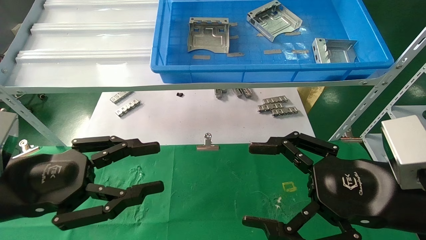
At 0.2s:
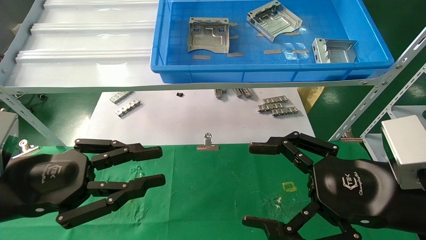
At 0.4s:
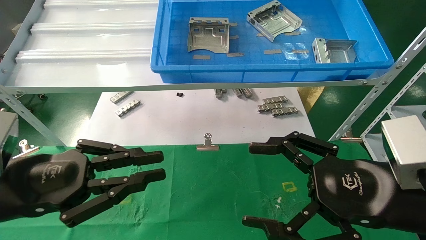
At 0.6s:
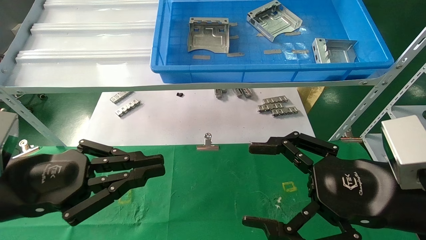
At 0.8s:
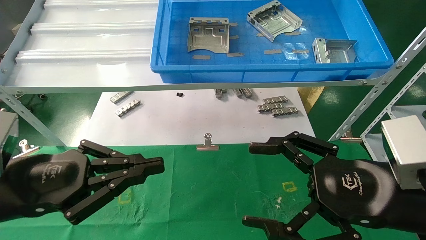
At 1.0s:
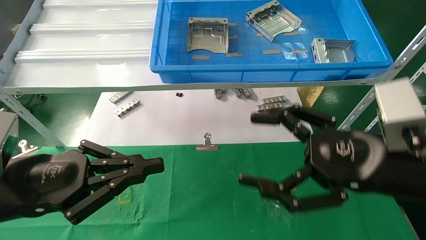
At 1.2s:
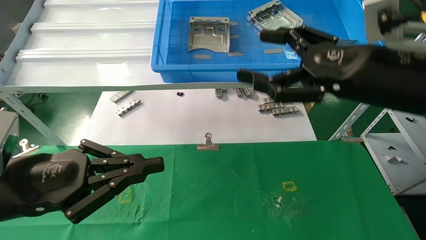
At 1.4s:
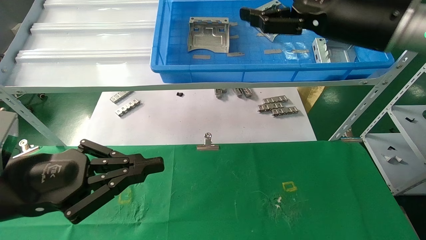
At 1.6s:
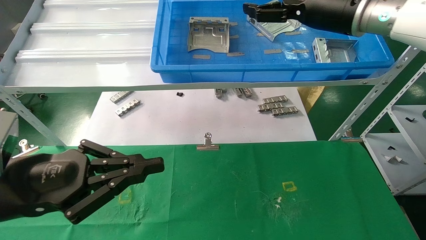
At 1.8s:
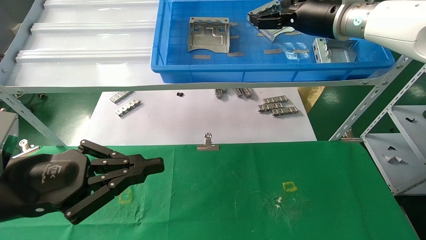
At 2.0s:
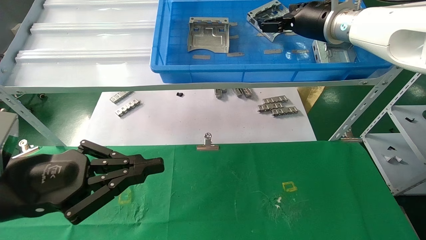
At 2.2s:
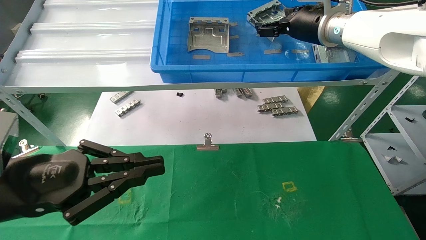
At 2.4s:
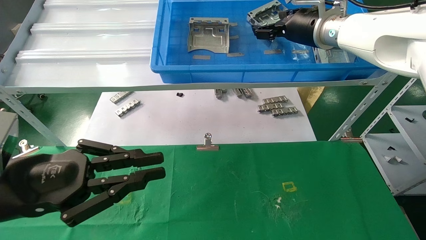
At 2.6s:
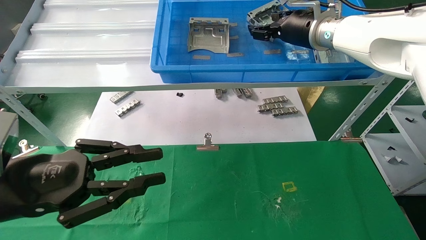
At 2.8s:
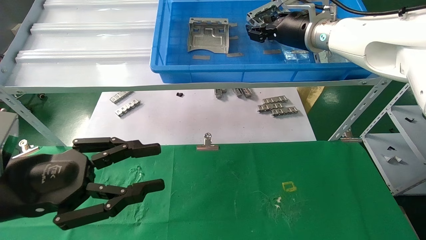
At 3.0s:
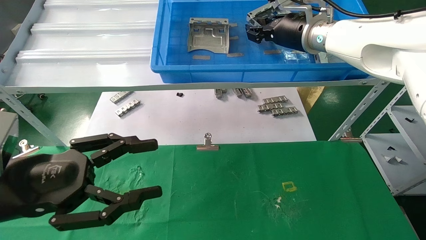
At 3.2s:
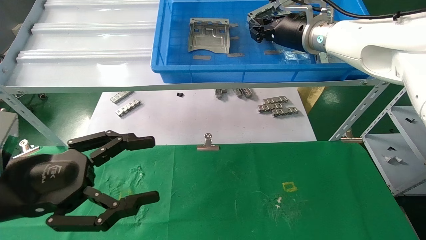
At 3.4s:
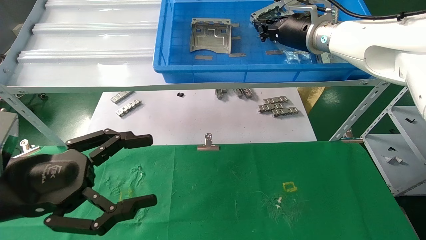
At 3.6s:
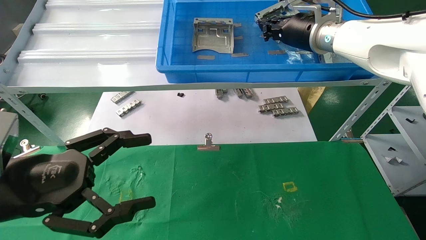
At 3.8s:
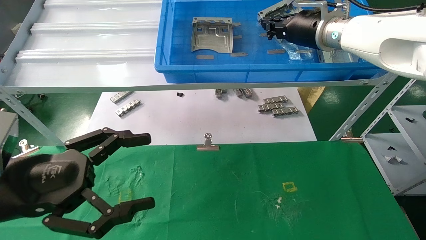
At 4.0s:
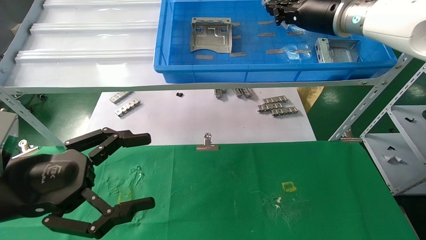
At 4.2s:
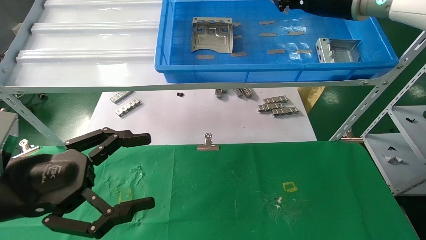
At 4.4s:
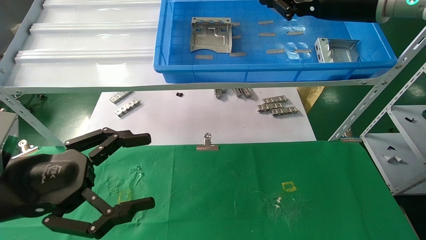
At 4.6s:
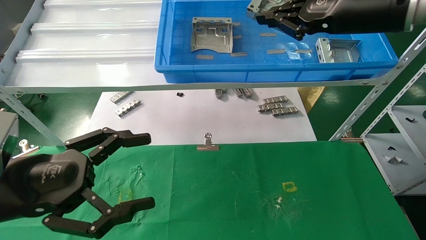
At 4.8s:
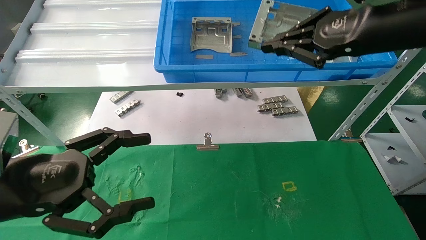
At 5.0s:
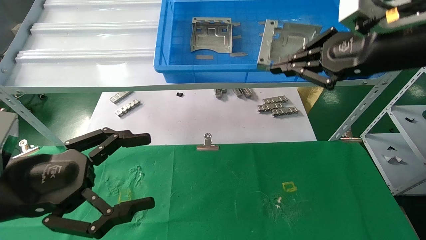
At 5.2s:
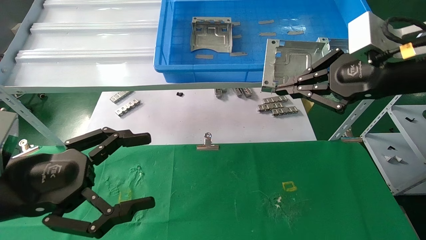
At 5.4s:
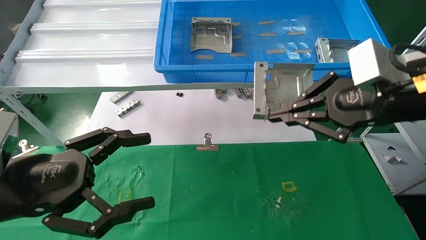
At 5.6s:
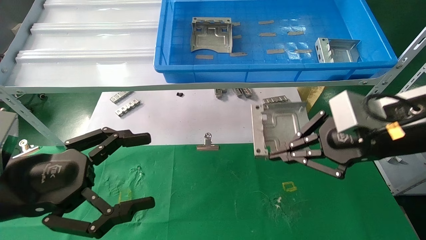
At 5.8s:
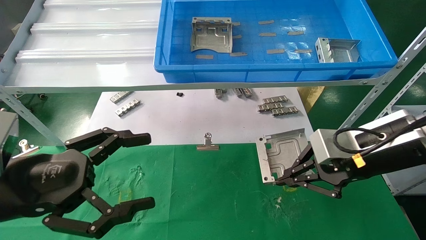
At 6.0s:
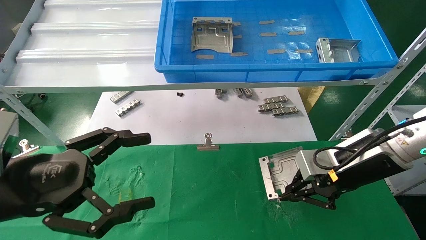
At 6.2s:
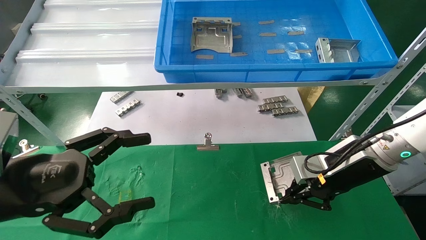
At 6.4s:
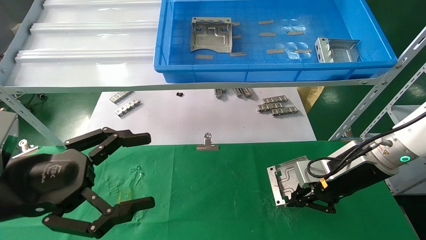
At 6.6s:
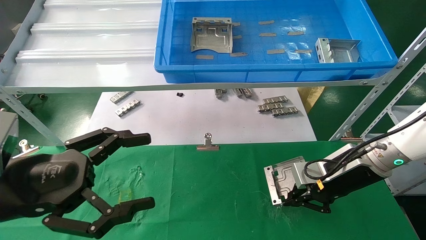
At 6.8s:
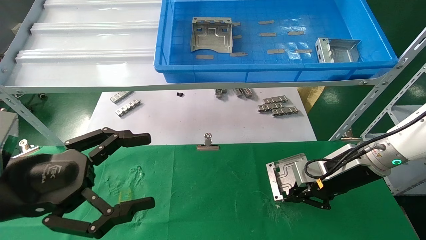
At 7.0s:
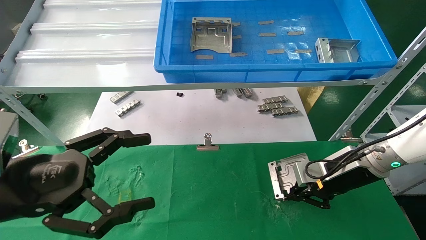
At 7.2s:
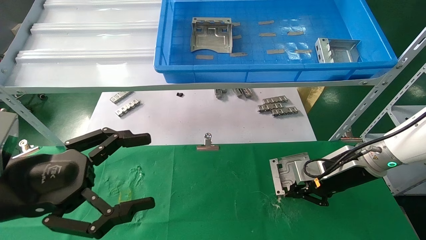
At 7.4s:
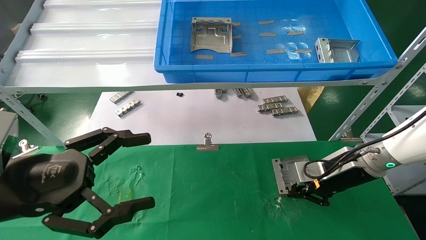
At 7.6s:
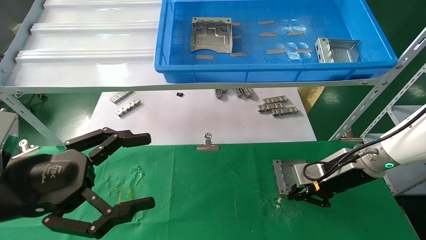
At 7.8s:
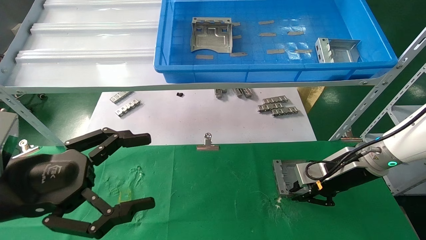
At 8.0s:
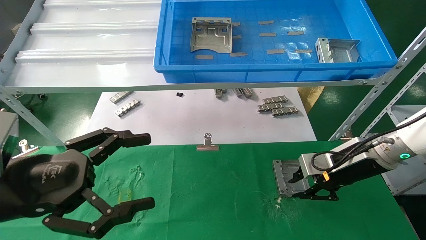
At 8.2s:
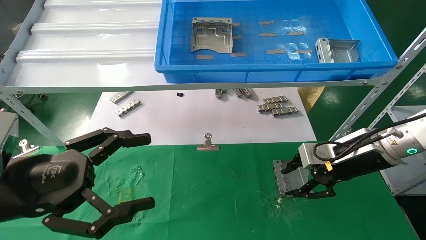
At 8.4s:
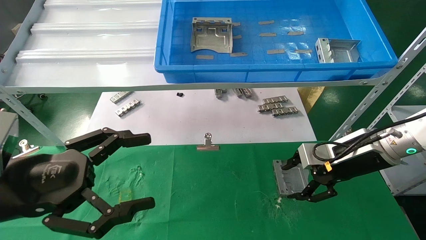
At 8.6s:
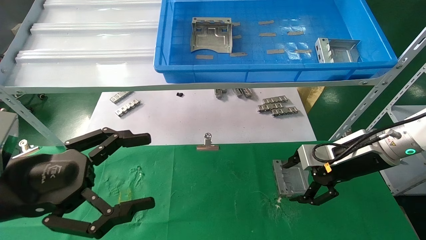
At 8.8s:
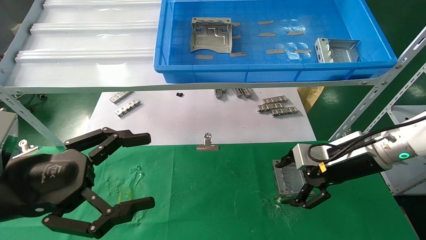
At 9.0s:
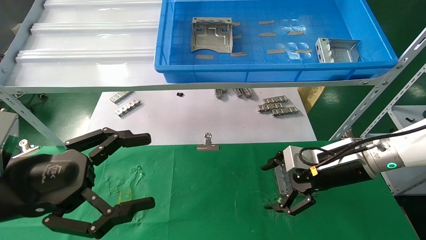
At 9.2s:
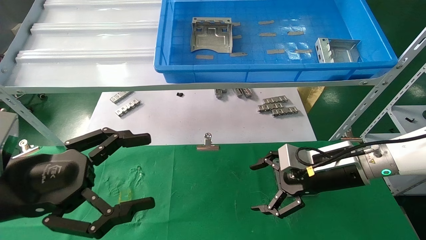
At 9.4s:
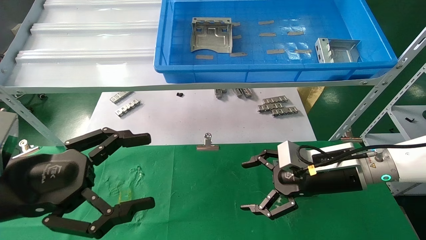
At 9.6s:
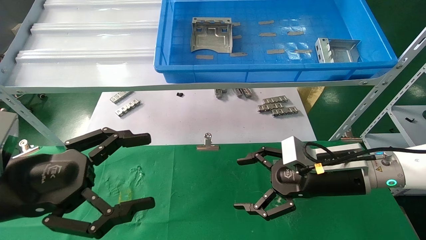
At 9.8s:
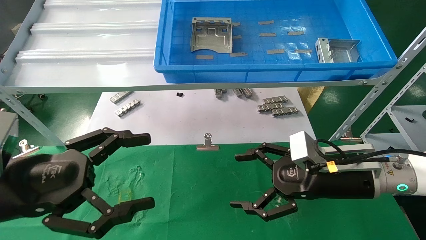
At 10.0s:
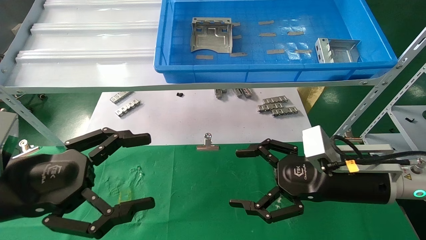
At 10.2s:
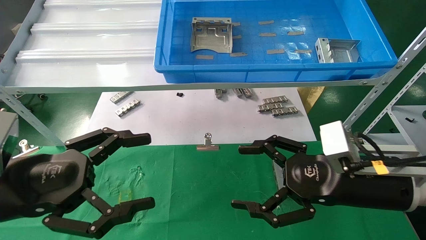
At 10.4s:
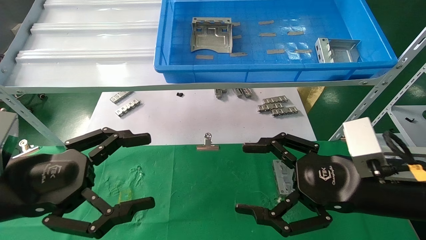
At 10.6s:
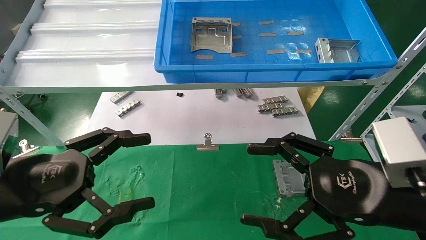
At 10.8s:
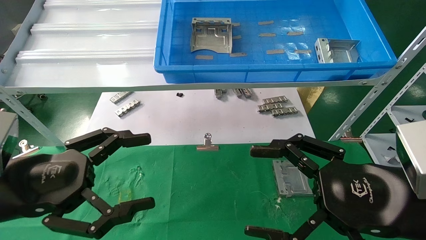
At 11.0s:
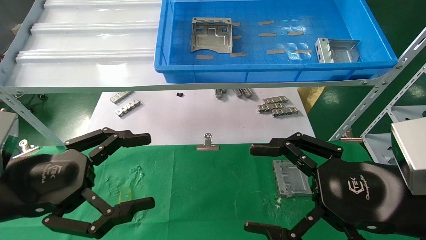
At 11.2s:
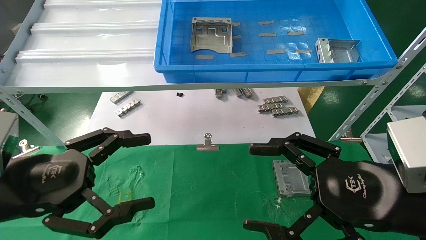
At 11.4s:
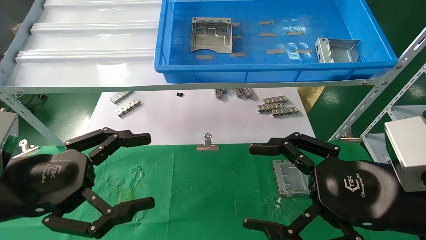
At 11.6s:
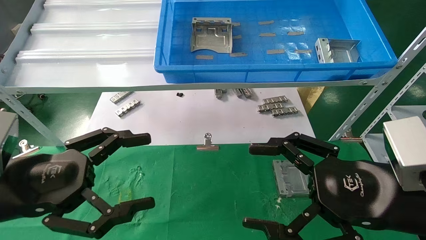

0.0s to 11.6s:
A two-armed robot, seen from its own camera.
Task of the whole recording: use the mechanical arm to pick up the parts and place them on the table.
Step, 0.6s to 5.0s: Pick up the hard drive bracket from the feeding area.
Step, 5.2s to 9.2s: Place the hard drive bracket into the box.
0.0s to 1.4s: The right gripper travels upward and forward by approximately 25 cm; the left gripper closes.
1.4s to 2.8s: The right gripper travels forward by roughly 10 cm, and closes.
2.8s to 4.4s: The right gripper is displaced backward and to the right by roughly 10 cm, and closes up. The left gripper opens its fingers.
4.4s to 5.8s: The right gripper is displaced downward and backward by approximately 20 cm.
5.8s to 7.2s: The right gripper heads downward and forward, covering about 15 cm.
7.2s to 8.8s: The right gripper opens.
8.8s to 10.2s: The right gripper heads backward, covering about 10 cm.
10.2s to 11.6s: The right gripper goes roughly 5 cm backward.
